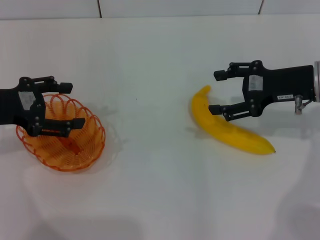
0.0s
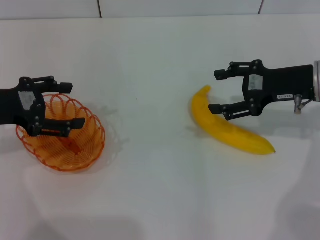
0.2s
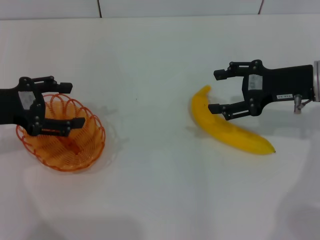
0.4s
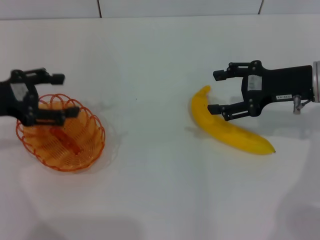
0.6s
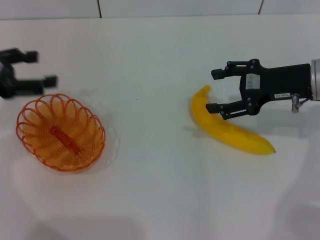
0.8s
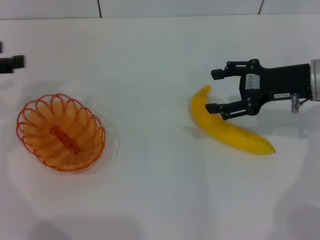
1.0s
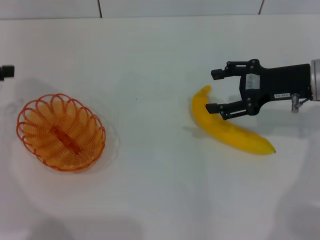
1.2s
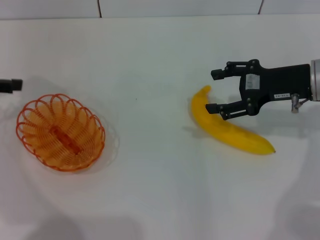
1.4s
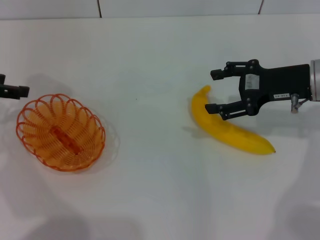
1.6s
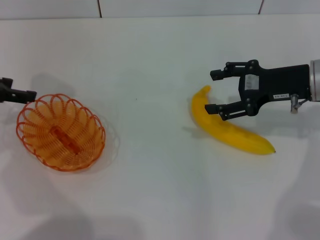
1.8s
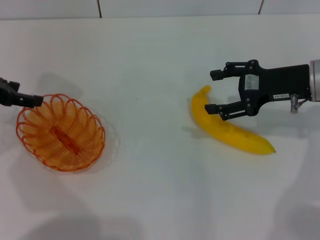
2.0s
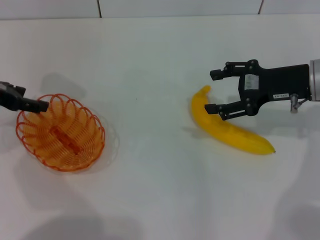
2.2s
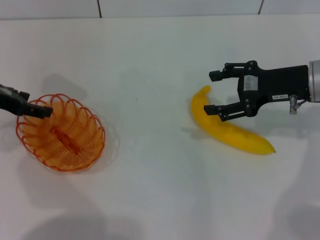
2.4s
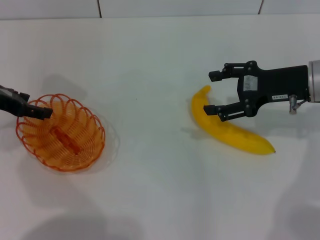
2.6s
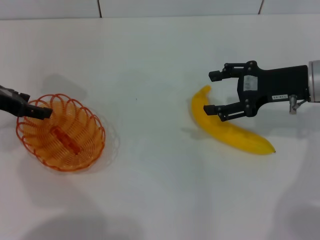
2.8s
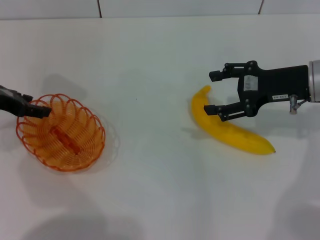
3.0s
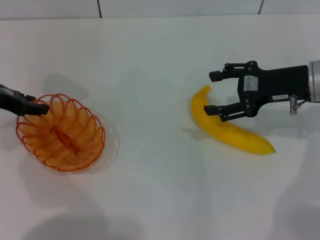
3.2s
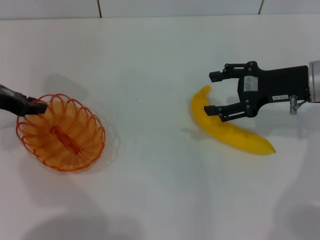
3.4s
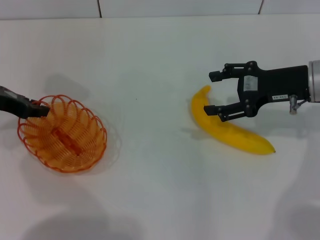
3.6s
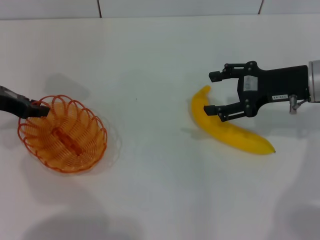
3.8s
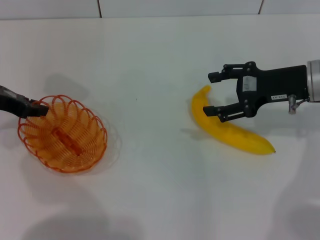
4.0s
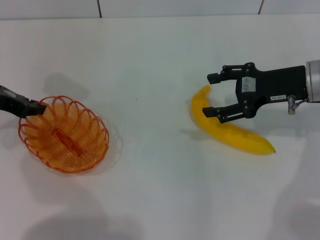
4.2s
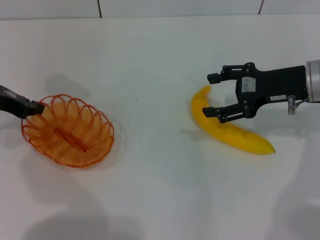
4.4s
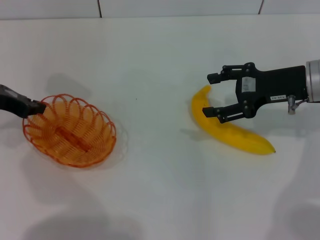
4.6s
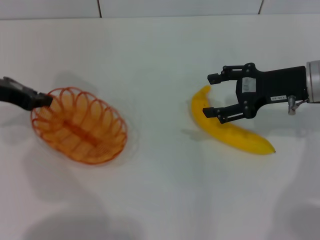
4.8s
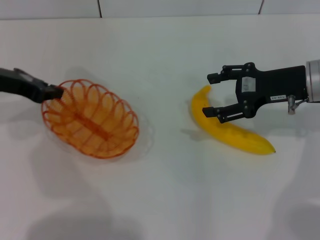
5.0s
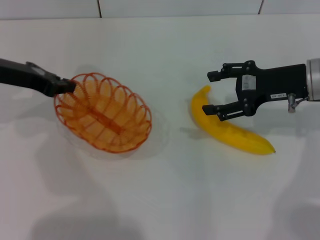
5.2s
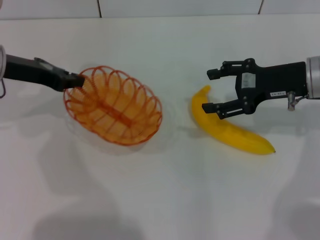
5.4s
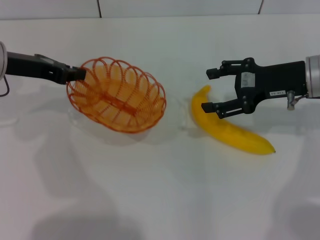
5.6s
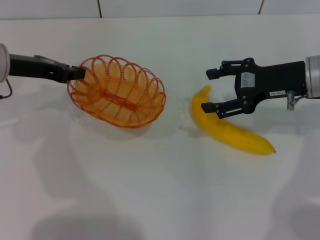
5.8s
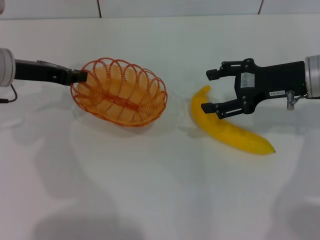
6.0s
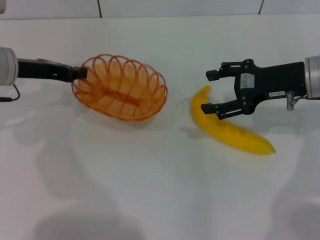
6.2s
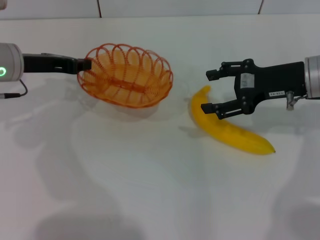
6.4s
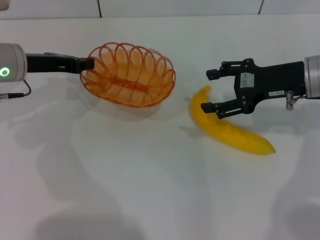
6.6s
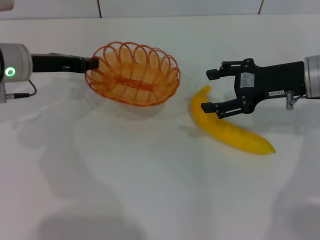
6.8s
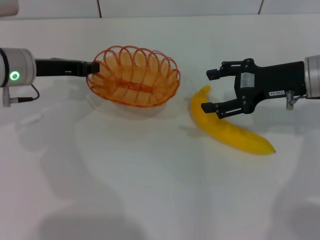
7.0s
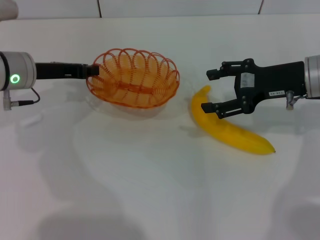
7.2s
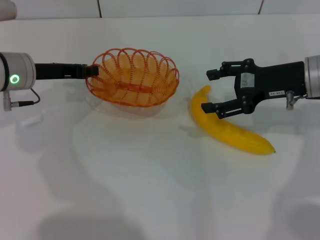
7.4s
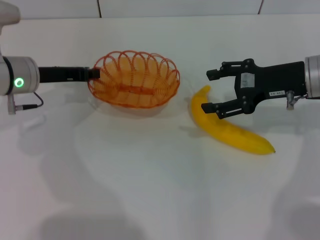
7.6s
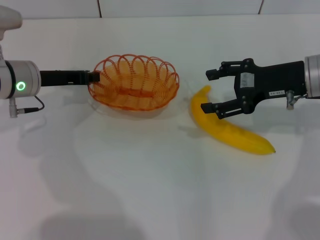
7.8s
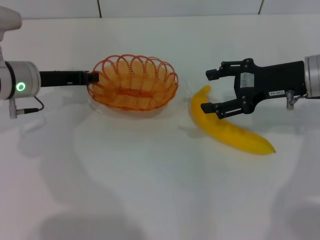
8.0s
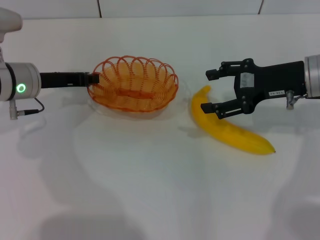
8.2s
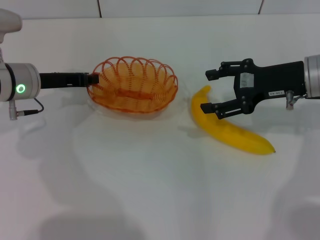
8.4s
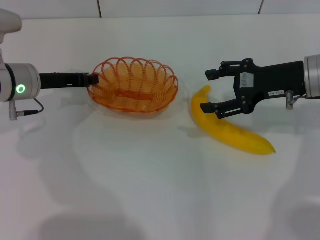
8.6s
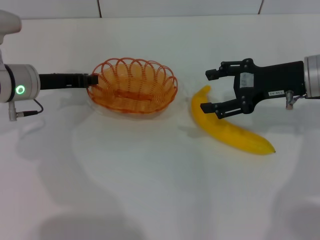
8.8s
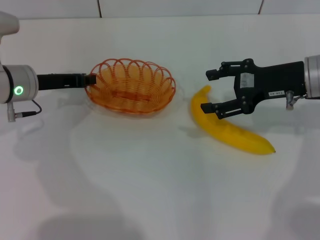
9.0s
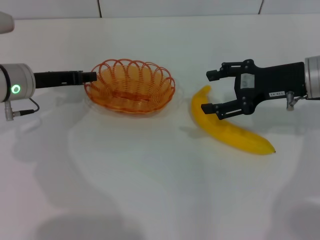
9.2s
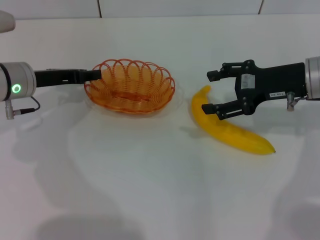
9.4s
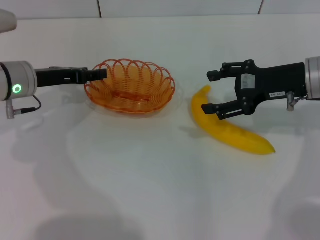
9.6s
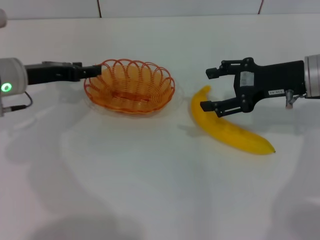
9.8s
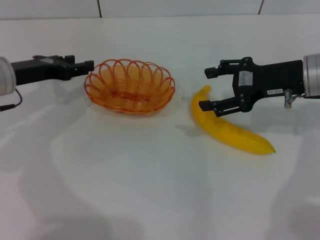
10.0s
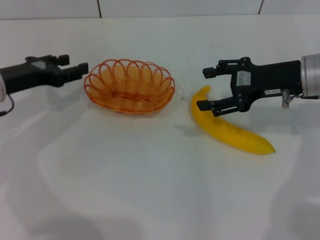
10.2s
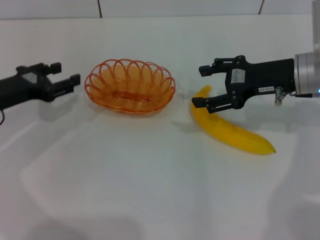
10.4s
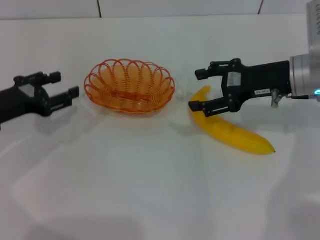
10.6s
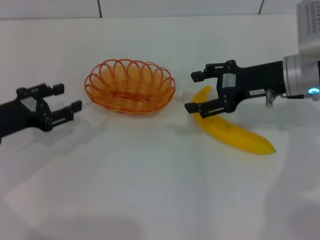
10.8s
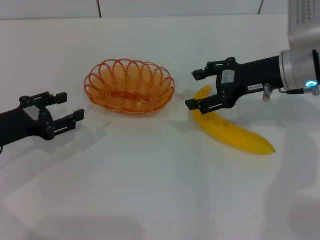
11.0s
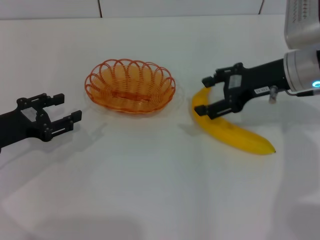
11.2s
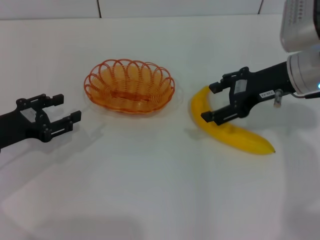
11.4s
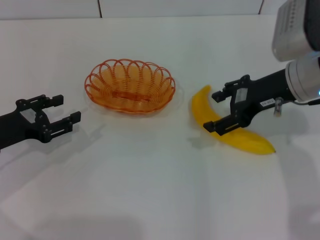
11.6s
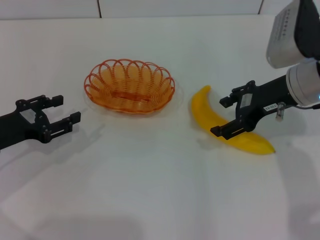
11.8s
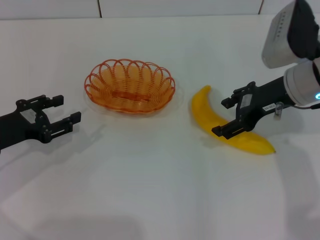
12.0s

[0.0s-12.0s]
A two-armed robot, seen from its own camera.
Step, 0.0s to 4.8s: Pick up the basket with the left gripper.
Step, 5.2s to 10.2s: Place the basket in the center of view with the left gripper.
0.0s to 1.6s: The left gripper goes approximately 5 cm to the left.
1.6s to 3.0s: The left gripper shifts by about 5 cm.
3.0s to 4.4s: The left gripper closes.
4.4s to 6.0s: The left gripper moves to the right, about 5 cm.
6.0s to 7.6s: The grippers stay close to where they were, moving slightly.
7.6s to 9.0s: The two grippers keep their place.
9.0s to 10.4s: The left gripper shifts approximately 5 cm to the left and backward, and opens up.
10.4s to 12.0s: The left gripper changes place by approximately 5 cm.

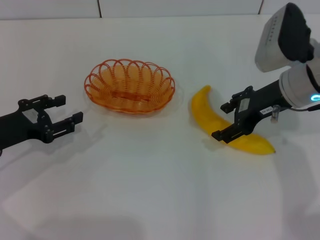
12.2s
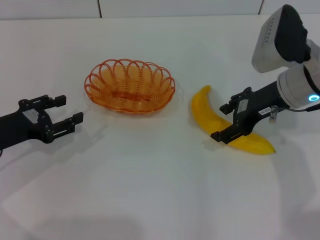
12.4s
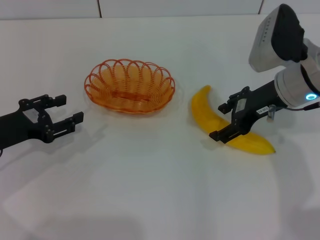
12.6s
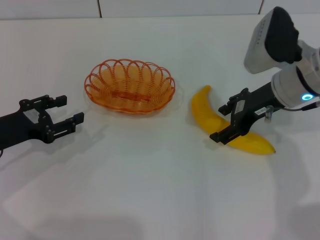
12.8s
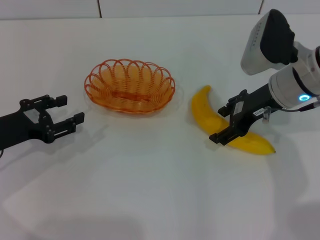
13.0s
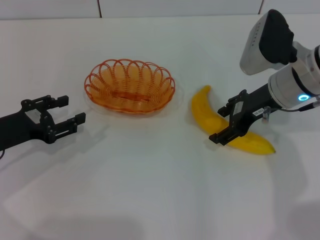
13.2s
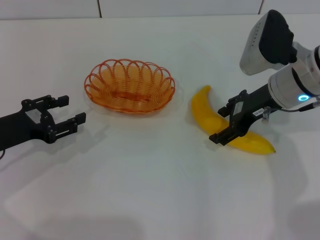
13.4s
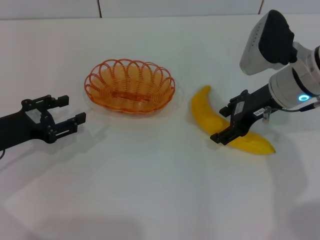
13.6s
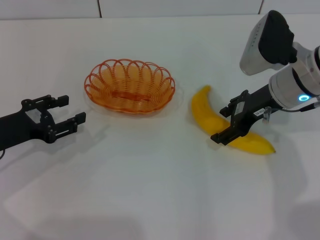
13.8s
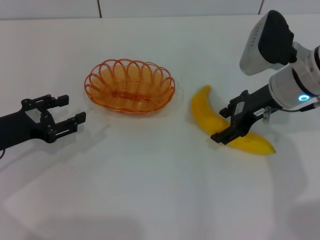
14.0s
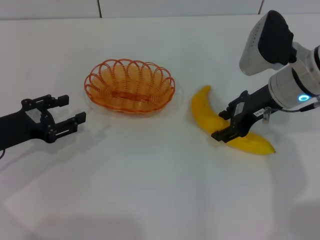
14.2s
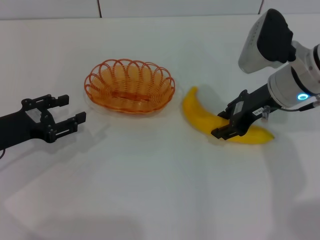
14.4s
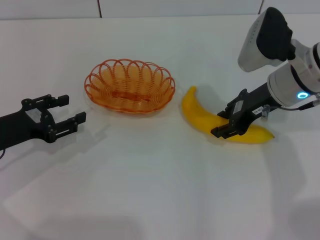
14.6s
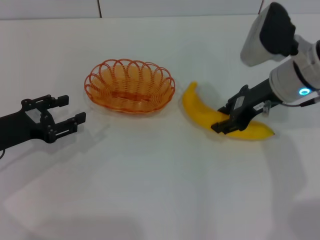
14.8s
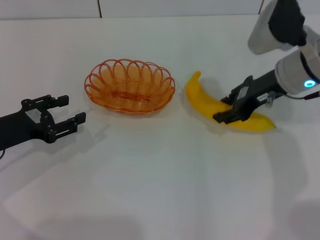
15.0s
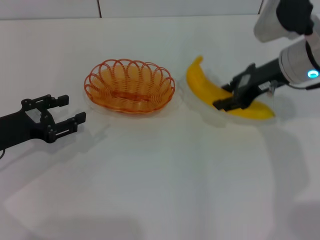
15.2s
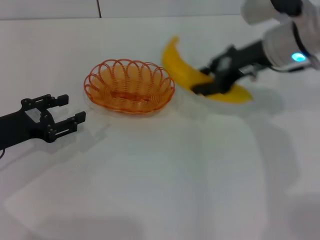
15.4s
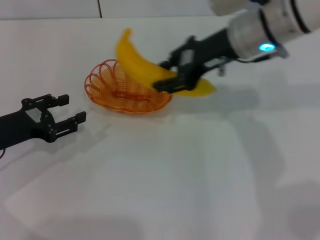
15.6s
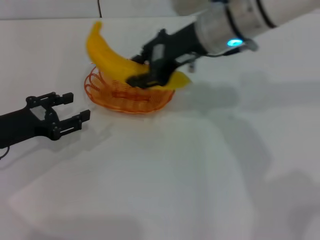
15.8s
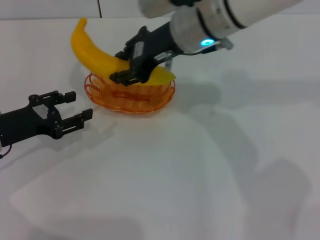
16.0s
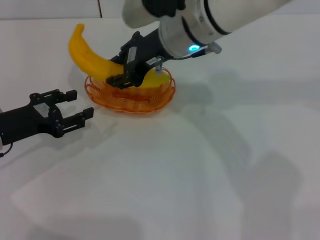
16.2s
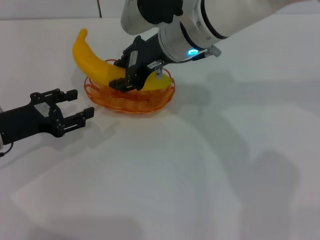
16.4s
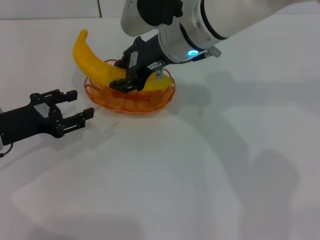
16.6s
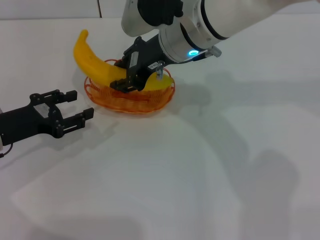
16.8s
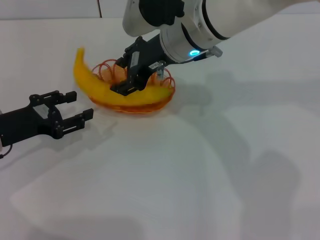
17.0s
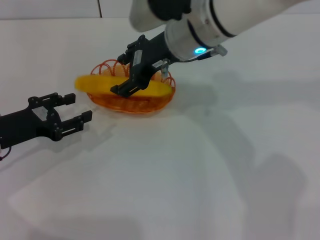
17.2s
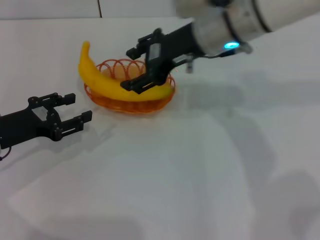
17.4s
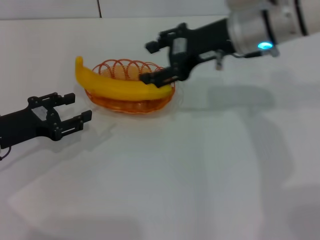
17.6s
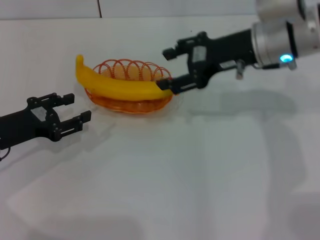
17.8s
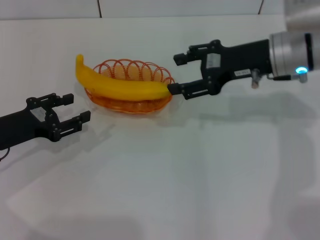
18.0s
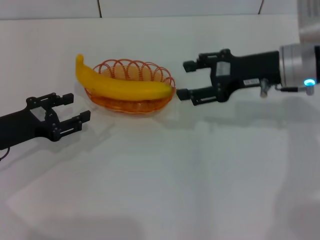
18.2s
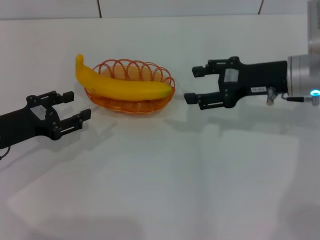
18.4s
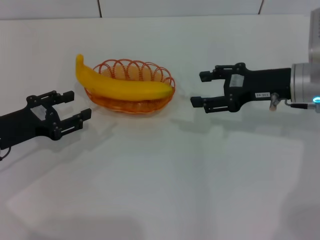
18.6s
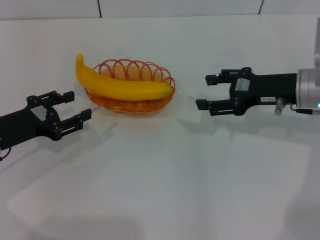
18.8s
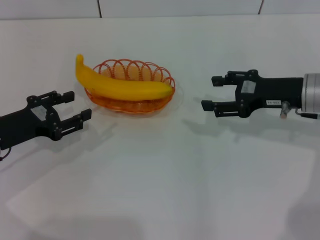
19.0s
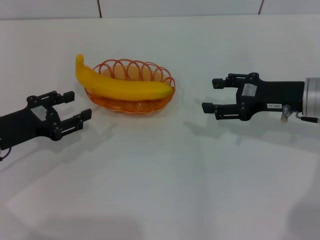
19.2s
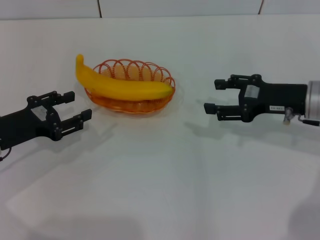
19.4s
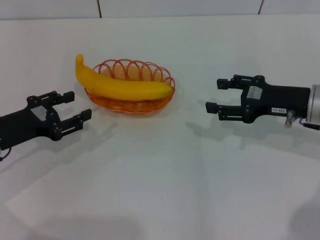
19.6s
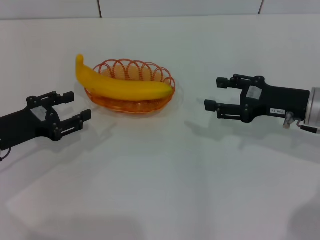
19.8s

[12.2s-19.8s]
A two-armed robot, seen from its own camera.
Step, 12.2s to 15.2s: Pick up the banana with the right gripper.
Step, 15.4s to 17.8s: Place the banana into the basket with the right gripper.
12.2s to 13.8s: The grippers stay close to where they were, moving slightly.
13.8s to 15.2s: The right gripper closes up.
15.2s to 16.8s: The right gripper goes some 15 cm to the left.
16.8s to 18.2s: The right gripper is displaced to the right by some 15 cm, and opens.
18.2s to 19.8s: The right gripper goes approximately 10 cm downward and backward.

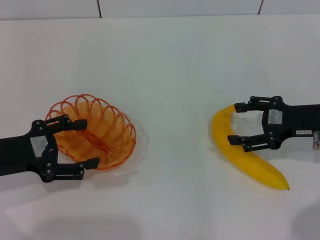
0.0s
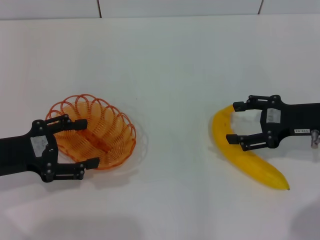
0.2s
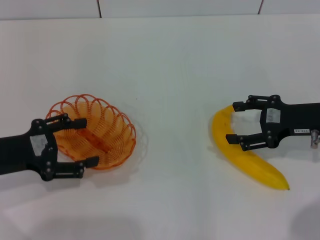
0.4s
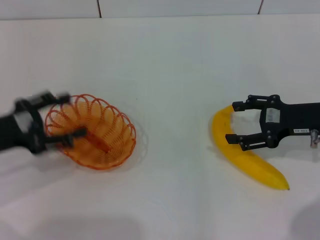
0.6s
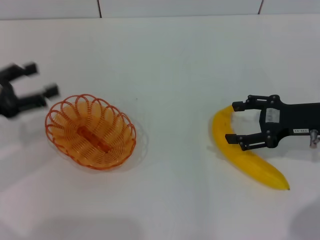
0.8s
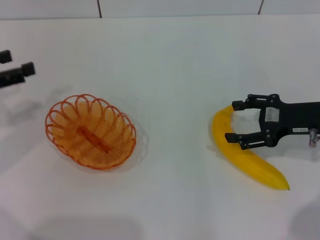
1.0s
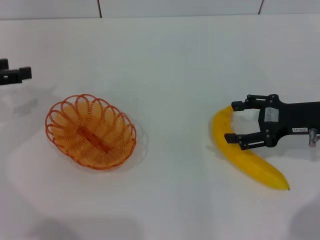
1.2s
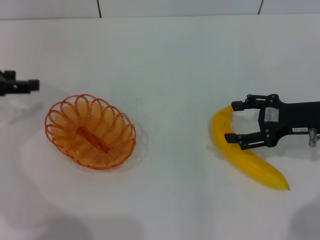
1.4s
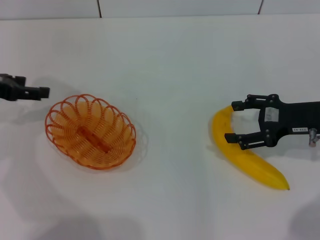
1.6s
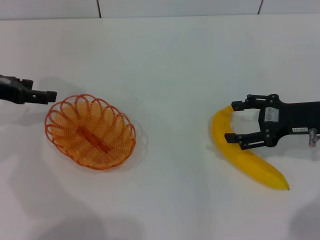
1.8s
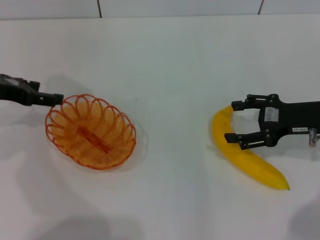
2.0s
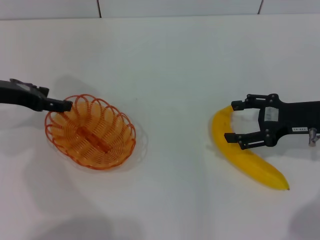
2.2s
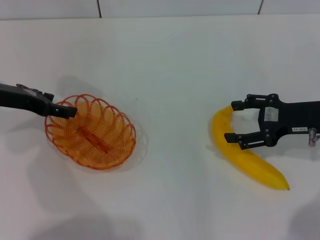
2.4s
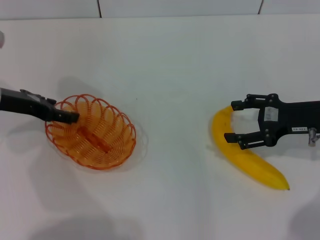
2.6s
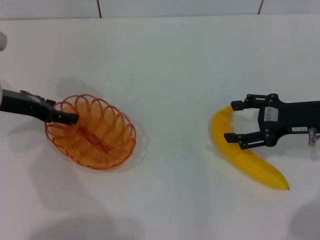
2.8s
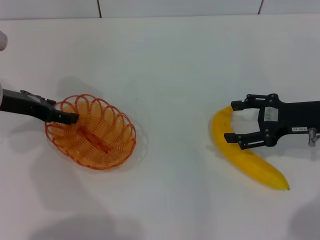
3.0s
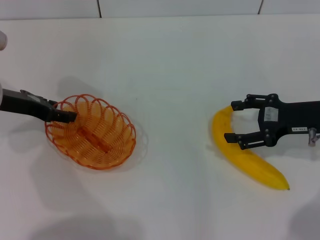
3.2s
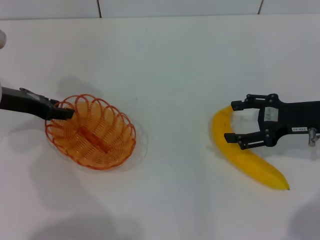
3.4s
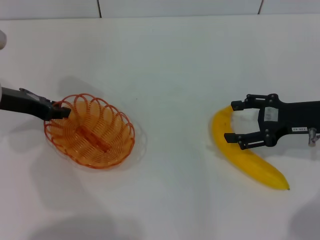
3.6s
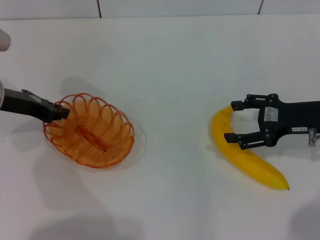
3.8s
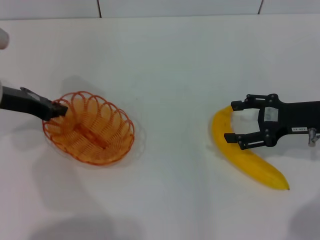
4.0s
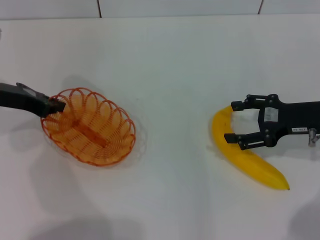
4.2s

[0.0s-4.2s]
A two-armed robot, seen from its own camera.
0.0s to 1.4s: The left gripper goes approximately 10 cm forward, upward and to the left.
1.4s to 2.8s: The left gripper shifts approximately 5 cm to the right.
2.8s to 4.2s: The left gripper closes its fingers.
